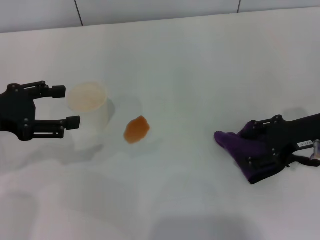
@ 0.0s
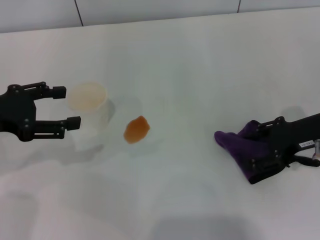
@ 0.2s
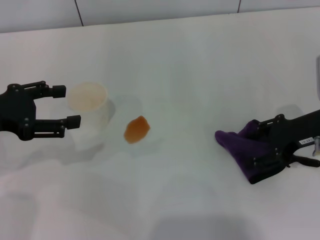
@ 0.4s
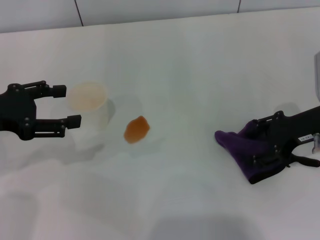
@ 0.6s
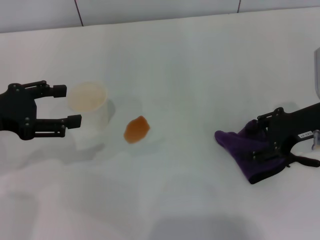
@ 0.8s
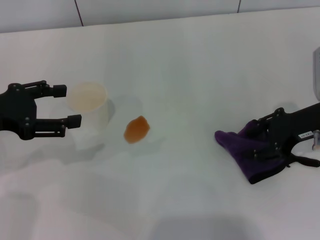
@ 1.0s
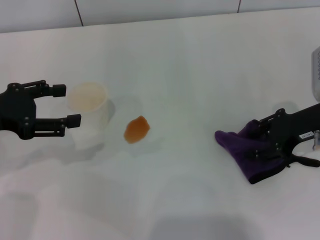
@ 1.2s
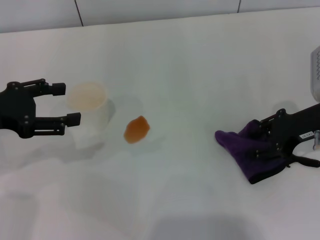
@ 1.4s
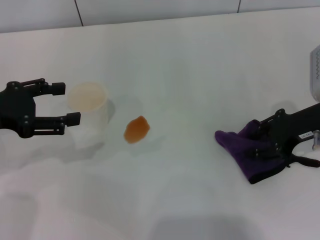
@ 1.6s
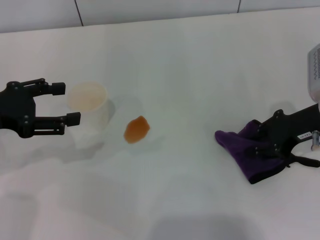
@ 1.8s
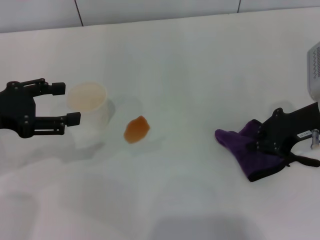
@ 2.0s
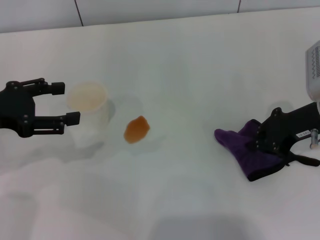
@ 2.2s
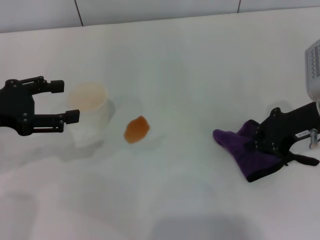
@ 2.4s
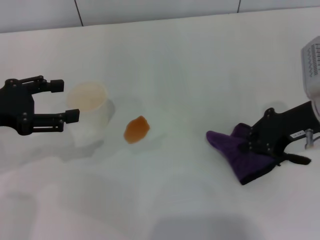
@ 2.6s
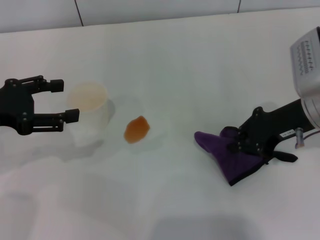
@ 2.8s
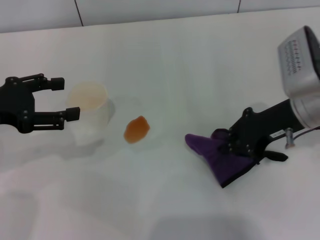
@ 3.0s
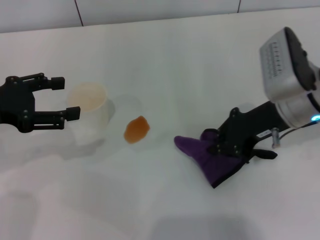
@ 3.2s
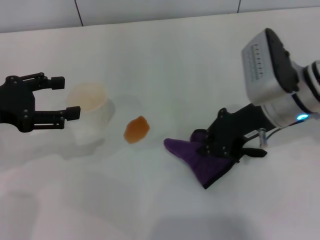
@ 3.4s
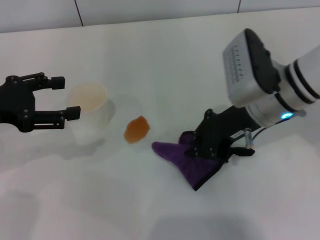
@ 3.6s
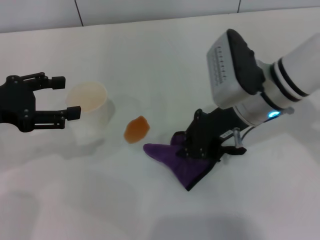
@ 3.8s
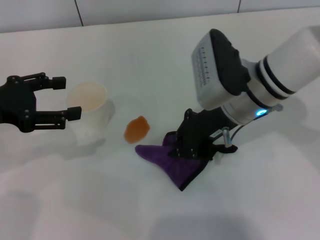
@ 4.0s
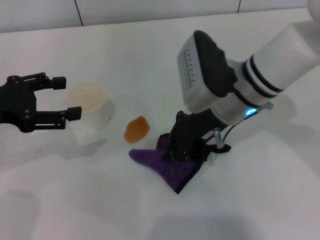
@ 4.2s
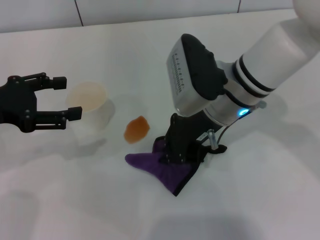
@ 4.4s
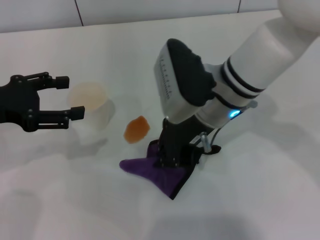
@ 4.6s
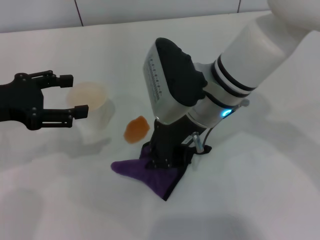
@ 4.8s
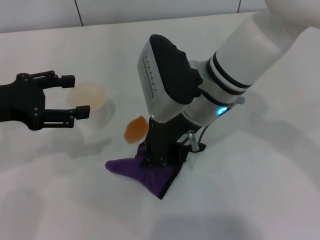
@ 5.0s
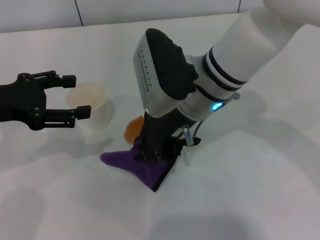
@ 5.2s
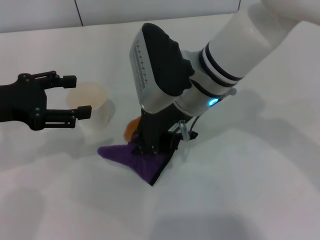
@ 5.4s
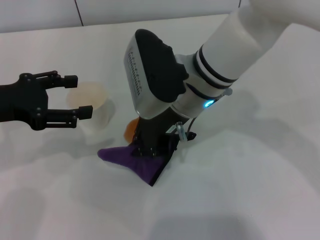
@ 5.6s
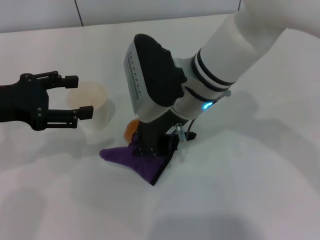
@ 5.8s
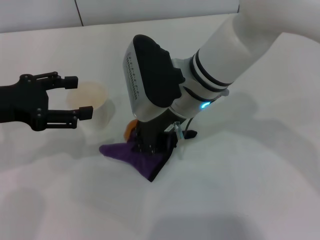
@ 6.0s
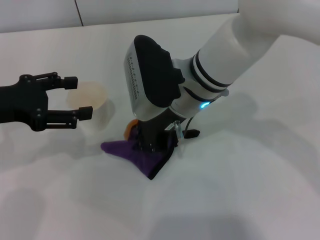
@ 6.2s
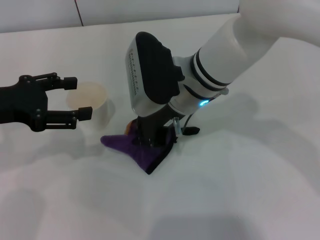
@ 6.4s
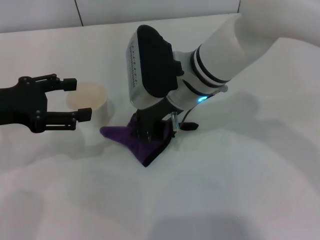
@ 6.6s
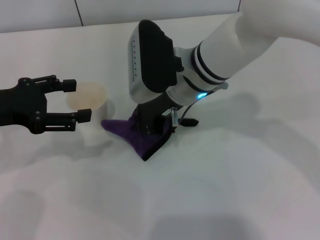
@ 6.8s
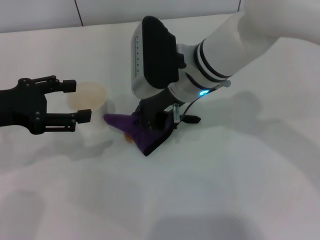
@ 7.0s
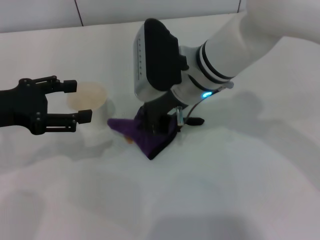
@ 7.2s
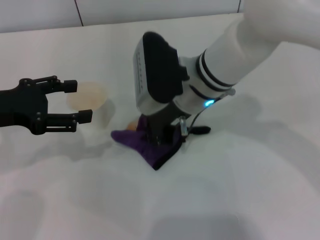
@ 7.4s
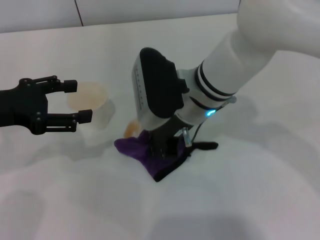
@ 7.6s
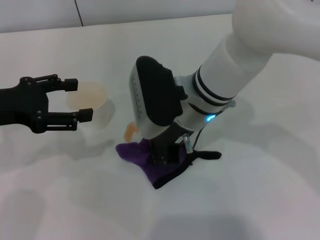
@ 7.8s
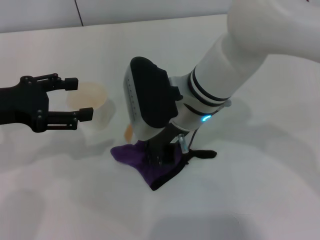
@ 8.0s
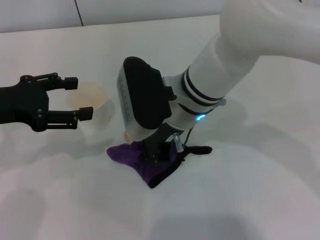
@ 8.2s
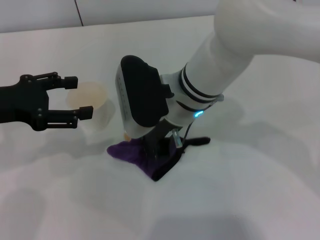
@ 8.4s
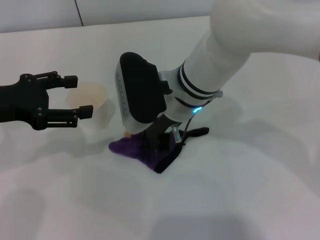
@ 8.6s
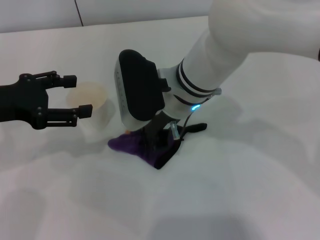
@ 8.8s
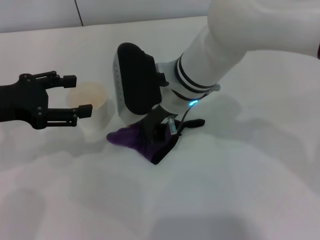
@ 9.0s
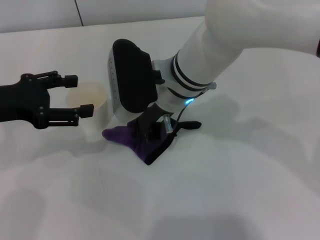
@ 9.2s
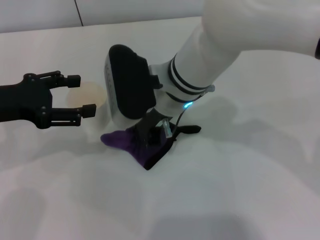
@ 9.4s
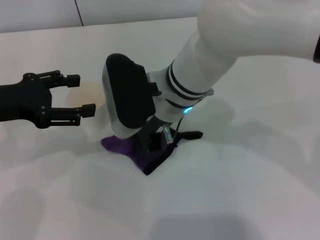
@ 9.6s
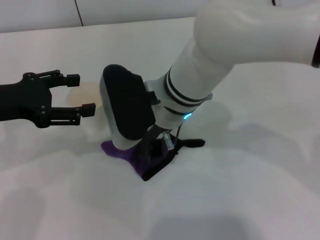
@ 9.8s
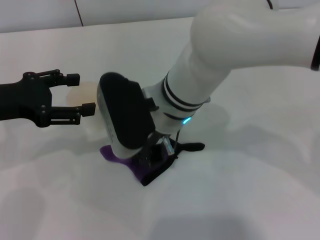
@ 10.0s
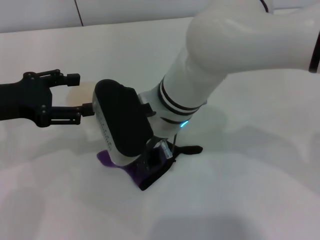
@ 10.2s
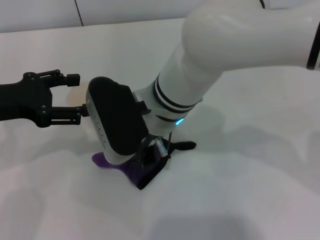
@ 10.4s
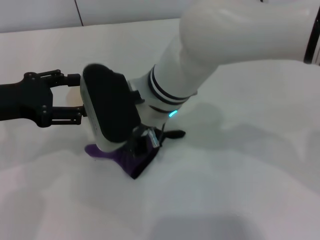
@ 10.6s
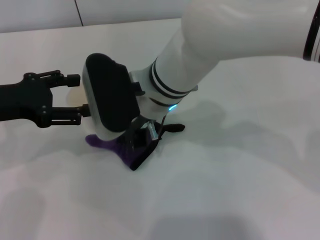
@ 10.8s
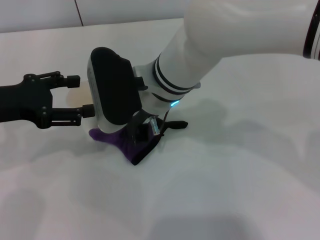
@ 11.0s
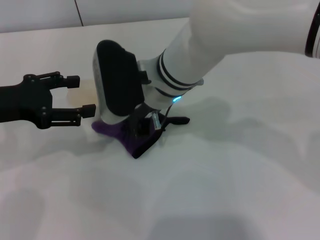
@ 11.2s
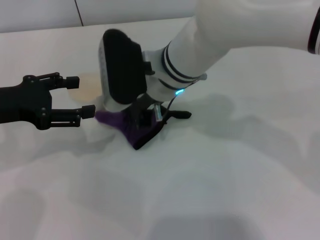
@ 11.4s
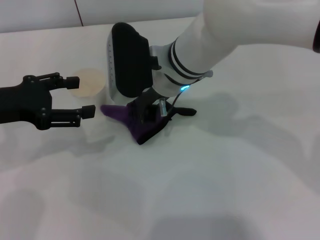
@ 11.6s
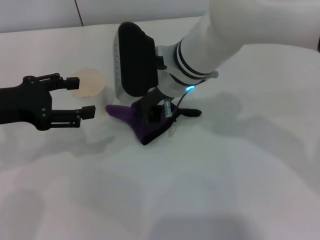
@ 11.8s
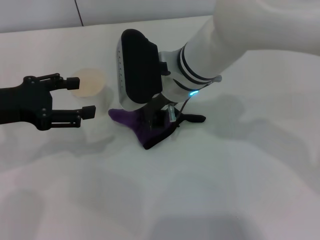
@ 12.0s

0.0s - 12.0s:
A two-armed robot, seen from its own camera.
Step, 0.0s - 2.4s: Grasp the rag with the right gripper.
0.0s - 1.6s: The grippers stay close to where they were, moving slightly.
1.6s - 3.0s: The right gripper changes place by roughly 5 cm, and closes its fingers.
3.0s - 4.4s: The right gripper travels to the left by roughly 15 cm.
4.4s - 6.0s: The right gripper shifts some 5 cm to the left.
6.0s - 10.4s: The grippers stay close to where they were, moving slightly.
10.4s - 12.0s: The right gripper changes place by about 5 cm.

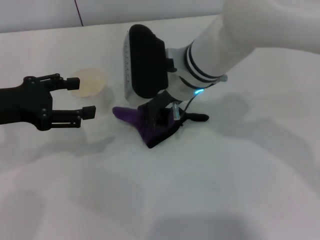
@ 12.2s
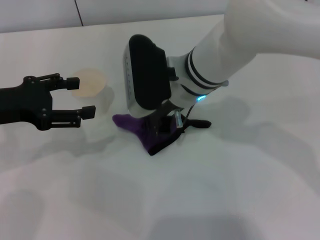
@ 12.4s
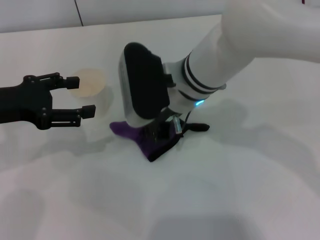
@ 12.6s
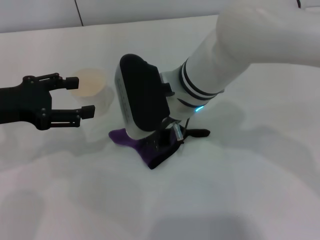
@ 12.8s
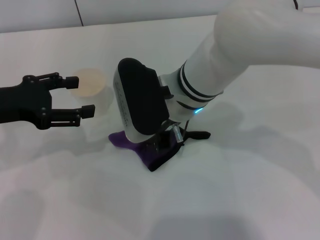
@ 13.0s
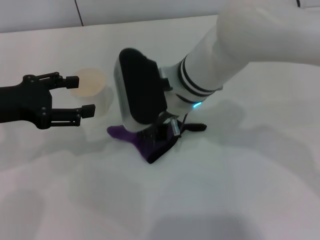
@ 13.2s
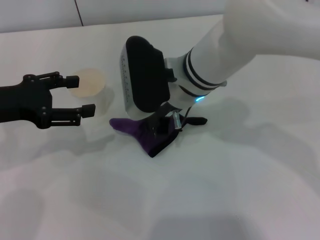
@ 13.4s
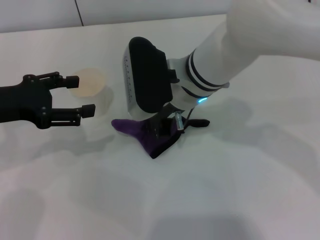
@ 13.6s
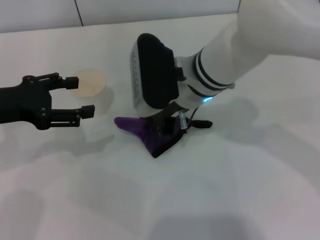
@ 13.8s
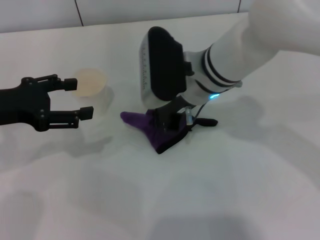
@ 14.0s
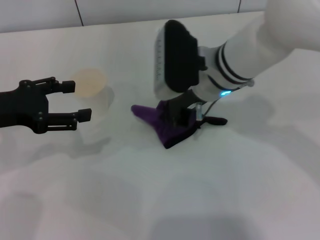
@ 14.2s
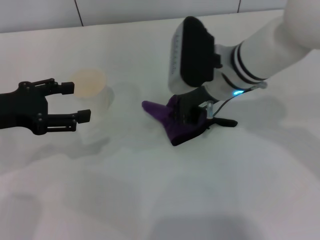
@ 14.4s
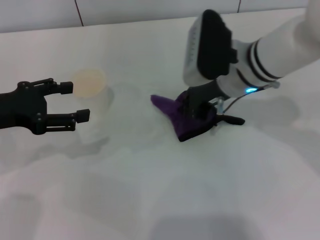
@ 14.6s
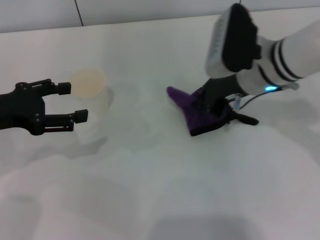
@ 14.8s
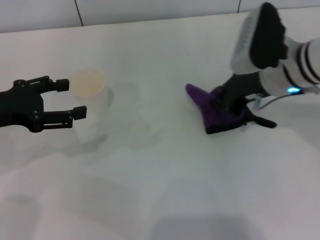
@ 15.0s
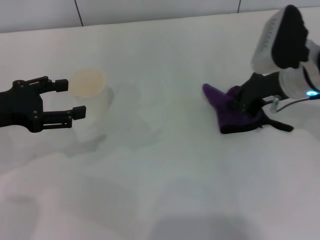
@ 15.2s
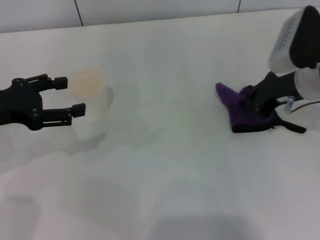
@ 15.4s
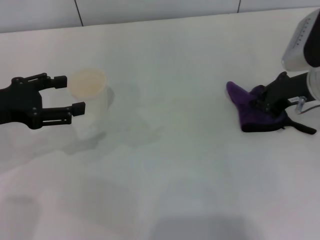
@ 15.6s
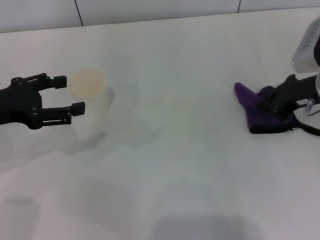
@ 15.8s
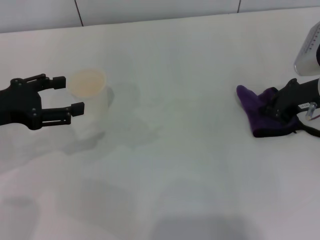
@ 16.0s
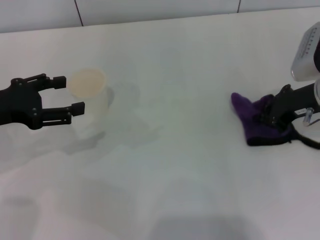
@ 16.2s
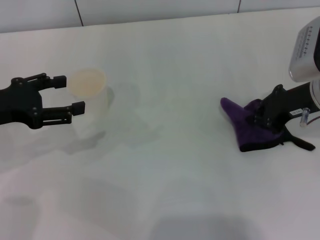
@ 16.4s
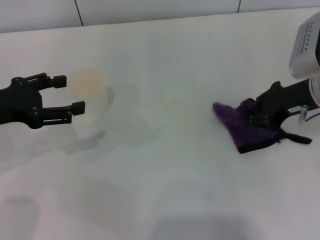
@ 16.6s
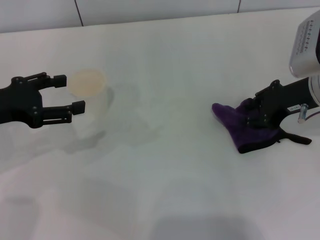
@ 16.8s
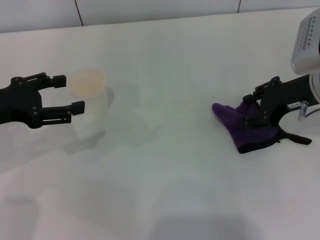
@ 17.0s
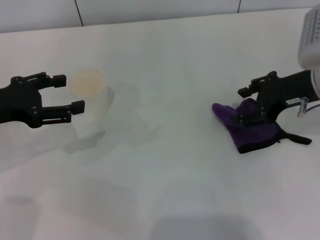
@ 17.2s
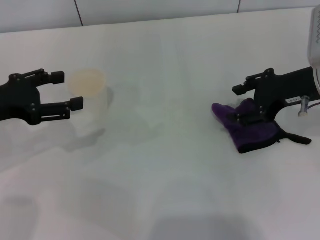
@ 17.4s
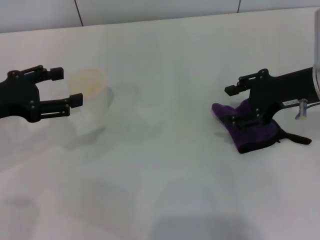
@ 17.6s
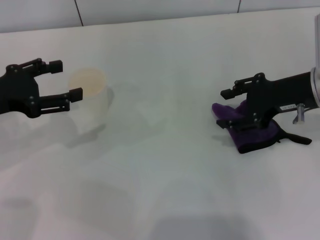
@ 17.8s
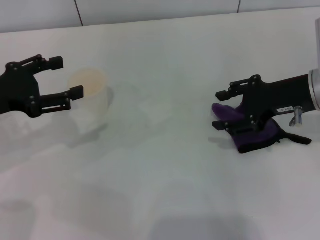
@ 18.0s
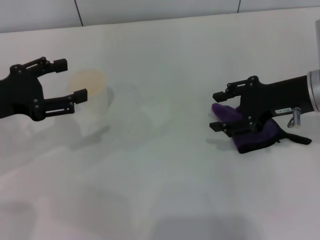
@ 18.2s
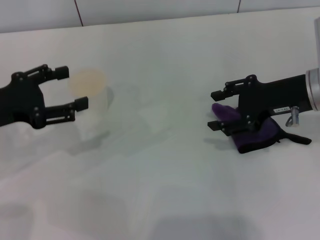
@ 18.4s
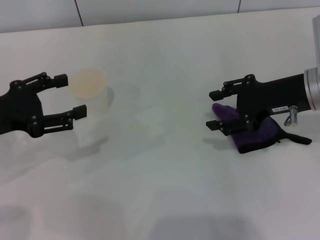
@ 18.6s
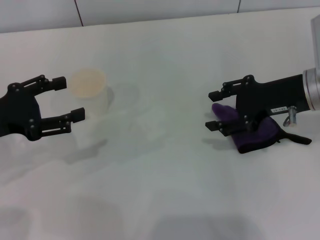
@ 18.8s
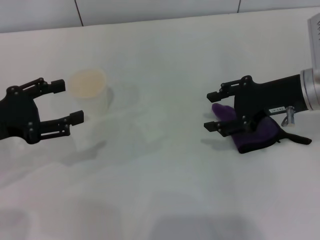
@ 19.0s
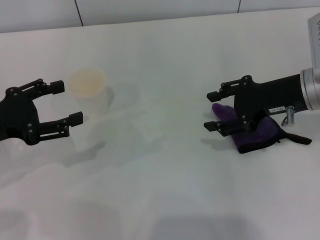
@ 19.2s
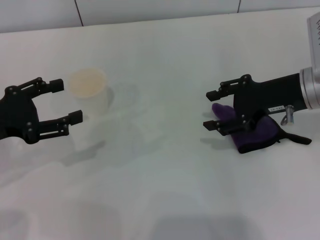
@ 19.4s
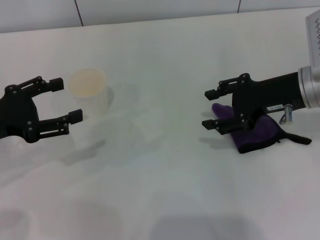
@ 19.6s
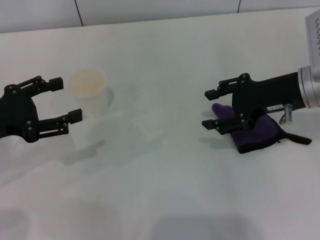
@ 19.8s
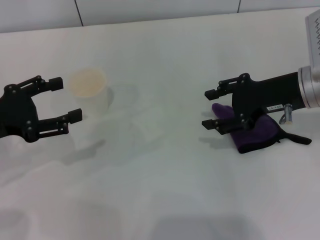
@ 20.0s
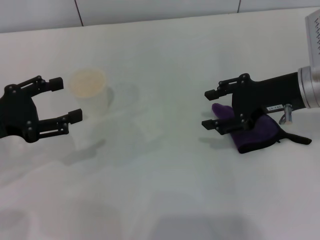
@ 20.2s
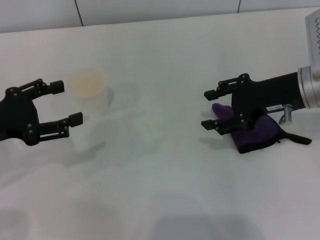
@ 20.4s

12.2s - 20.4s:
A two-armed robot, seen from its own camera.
Step, 12.2s - 16.4s: Wipe the stains off the table with the right gripper.
Step, 16.6s - 17.8s: Place the rag on the table with the right gripper.
12.2s - 13.8s: There are only small adjustments of the grippers.
13.8s - 15.4s: The right gripper is displaced to the right by some 20 cm.
15.4s - 17.2s: The right gripper opens its fingers.
17.2s - 18.8s: The grippers move only a little.
18.8s - 20.4s: Both grippers stay about where they are.

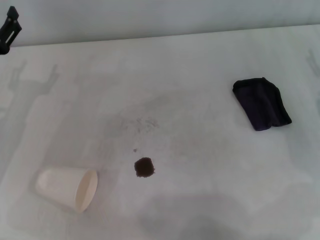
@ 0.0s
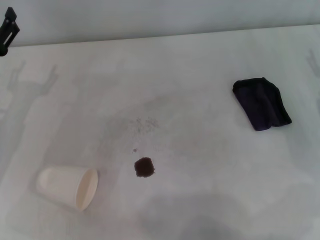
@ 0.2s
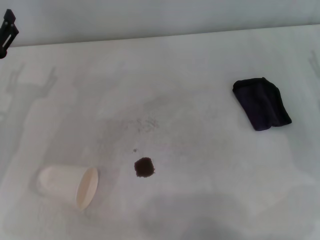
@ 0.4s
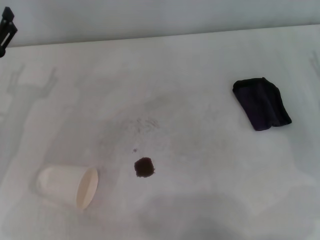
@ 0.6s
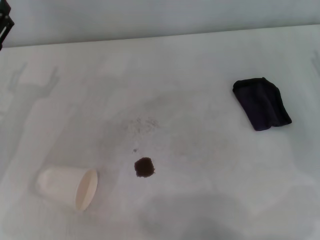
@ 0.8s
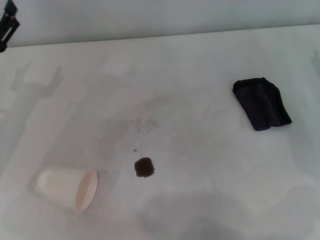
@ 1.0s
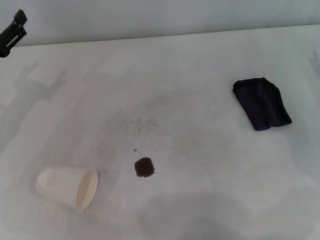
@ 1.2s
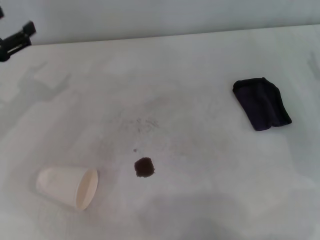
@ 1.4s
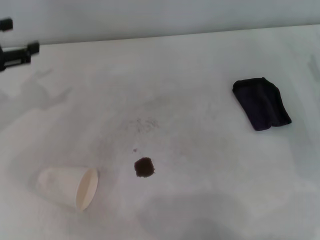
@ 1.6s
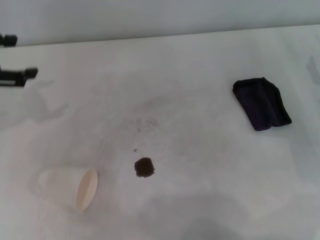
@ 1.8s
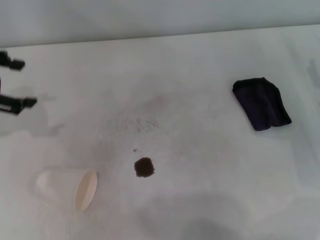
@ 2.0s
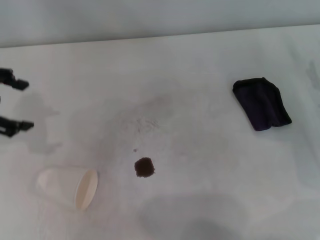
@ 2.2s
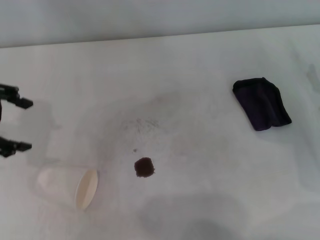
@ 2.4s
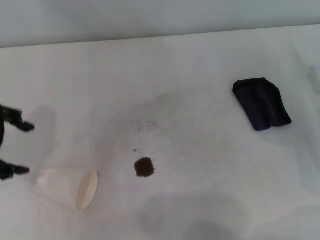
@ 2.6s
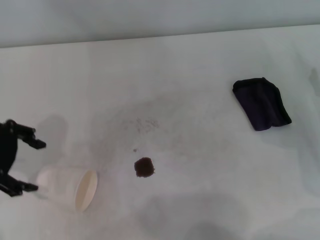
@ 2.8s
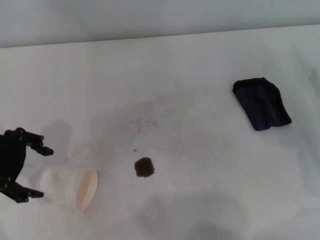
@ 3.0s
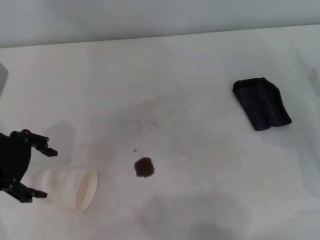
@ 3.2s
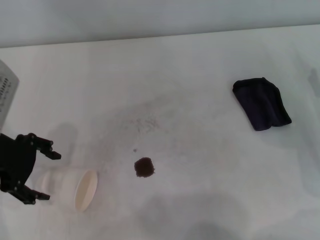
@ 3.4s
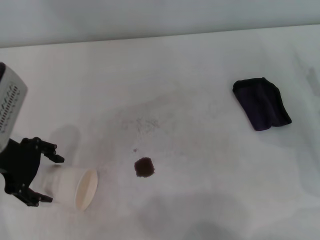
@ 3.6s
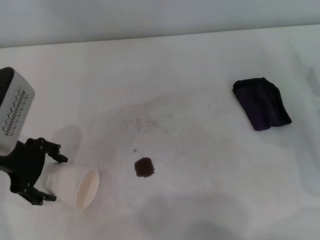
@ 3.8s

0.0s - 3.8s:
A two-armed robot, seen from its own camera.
1.2s - 2.6s: The left gripper heads upward, covering about 10 cm.
2.6s - 3.8s: The left gripper moves downward, approximately 5 cm.
